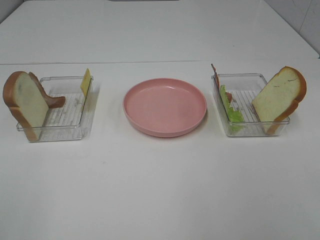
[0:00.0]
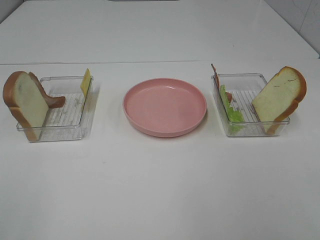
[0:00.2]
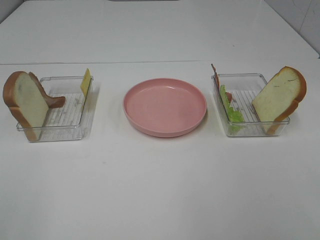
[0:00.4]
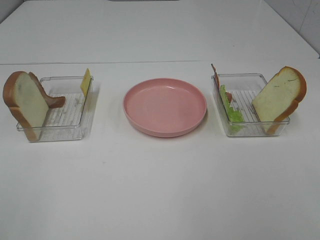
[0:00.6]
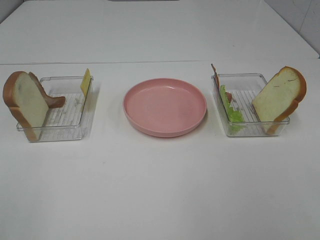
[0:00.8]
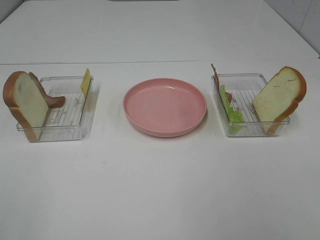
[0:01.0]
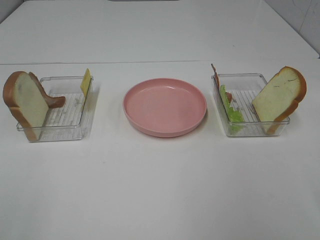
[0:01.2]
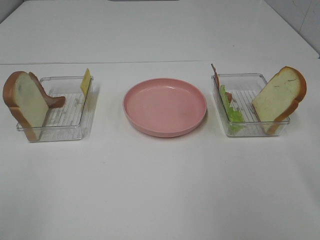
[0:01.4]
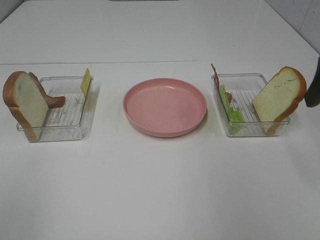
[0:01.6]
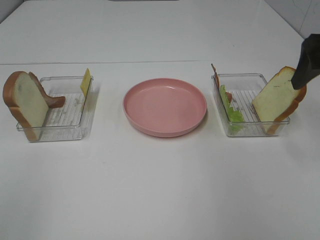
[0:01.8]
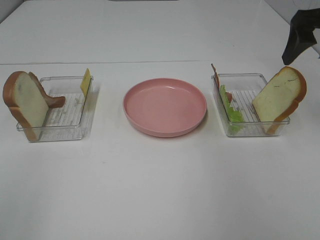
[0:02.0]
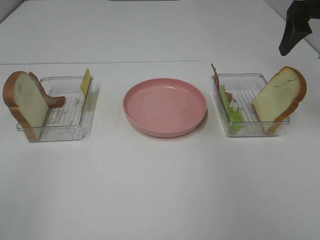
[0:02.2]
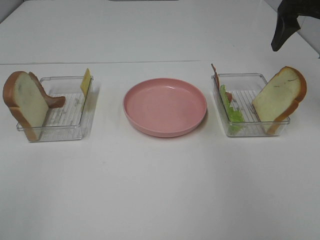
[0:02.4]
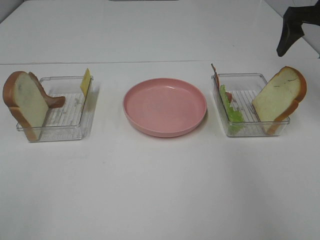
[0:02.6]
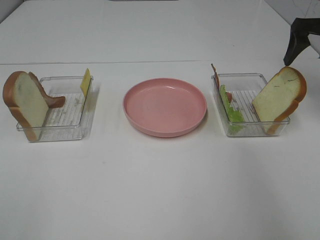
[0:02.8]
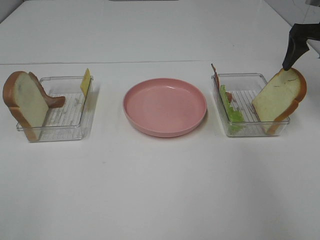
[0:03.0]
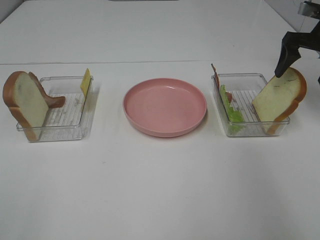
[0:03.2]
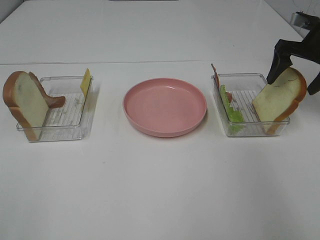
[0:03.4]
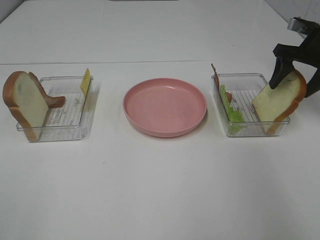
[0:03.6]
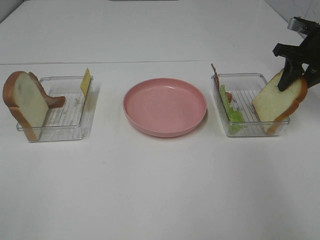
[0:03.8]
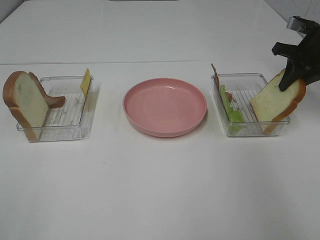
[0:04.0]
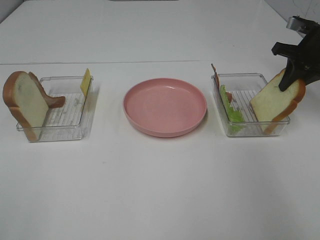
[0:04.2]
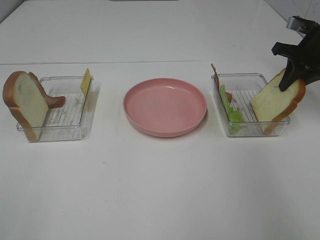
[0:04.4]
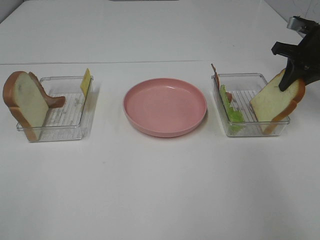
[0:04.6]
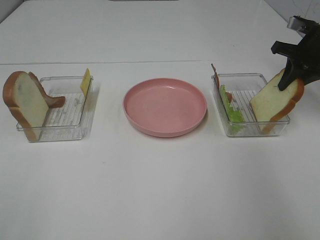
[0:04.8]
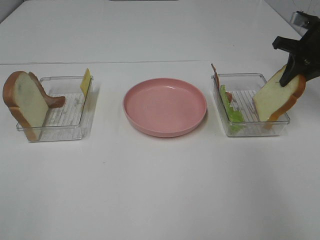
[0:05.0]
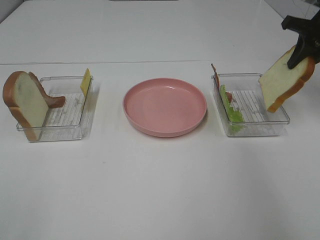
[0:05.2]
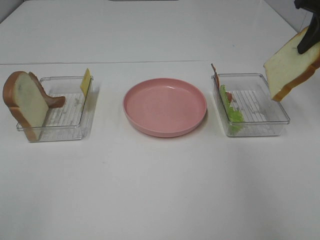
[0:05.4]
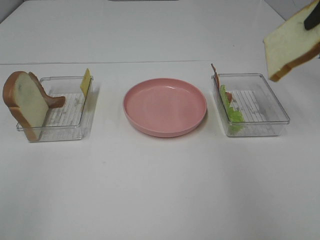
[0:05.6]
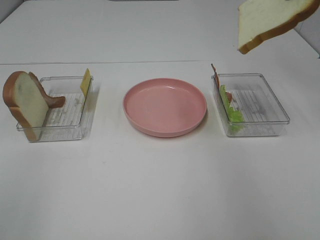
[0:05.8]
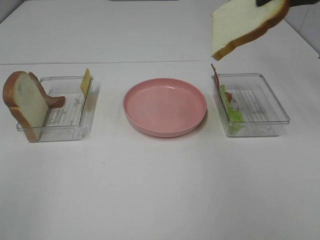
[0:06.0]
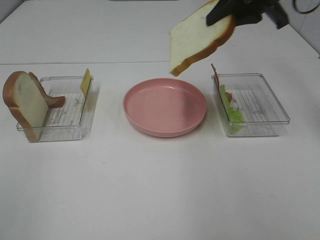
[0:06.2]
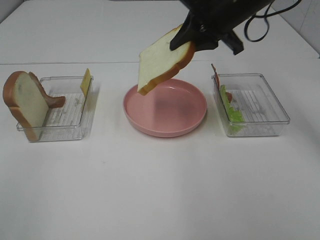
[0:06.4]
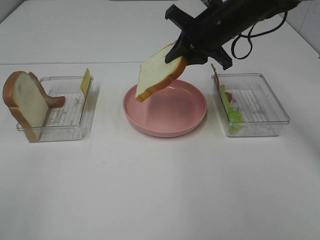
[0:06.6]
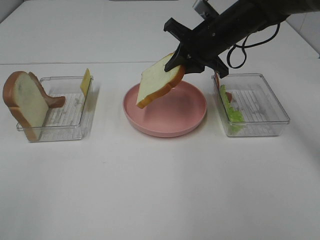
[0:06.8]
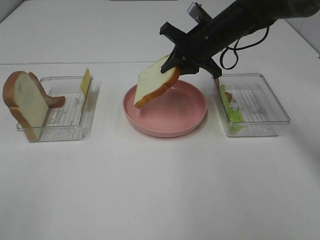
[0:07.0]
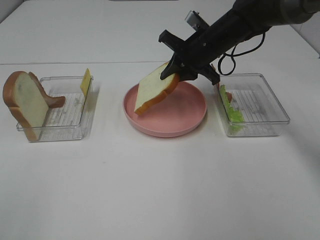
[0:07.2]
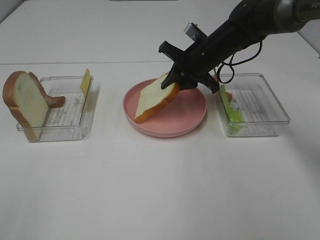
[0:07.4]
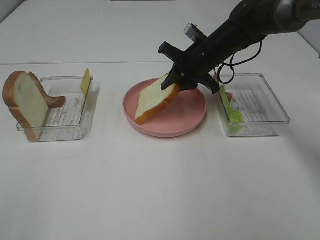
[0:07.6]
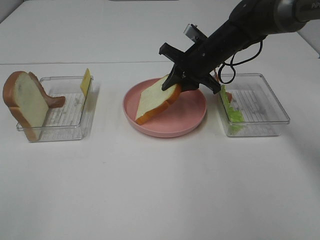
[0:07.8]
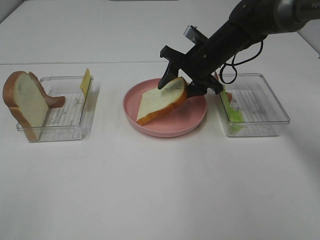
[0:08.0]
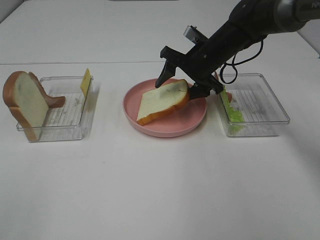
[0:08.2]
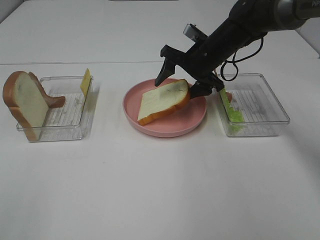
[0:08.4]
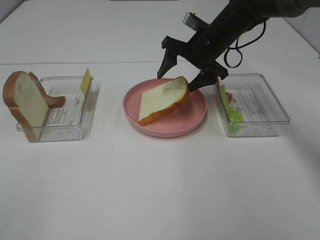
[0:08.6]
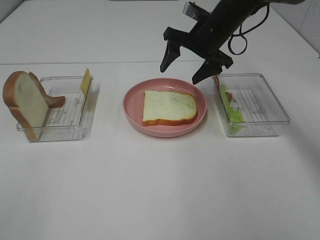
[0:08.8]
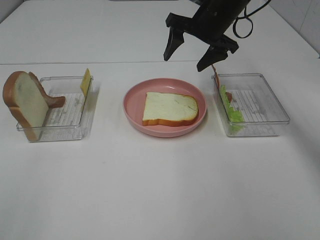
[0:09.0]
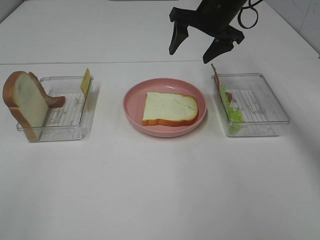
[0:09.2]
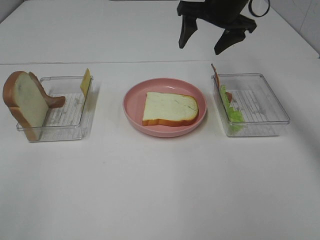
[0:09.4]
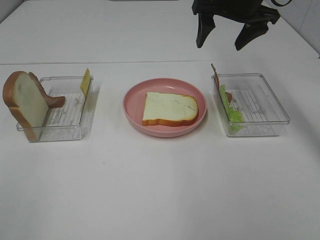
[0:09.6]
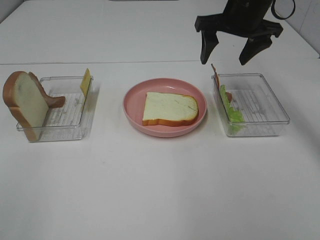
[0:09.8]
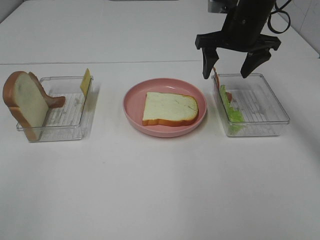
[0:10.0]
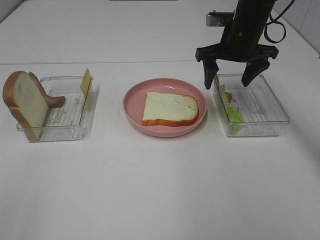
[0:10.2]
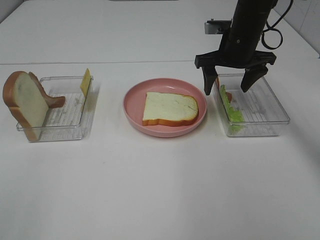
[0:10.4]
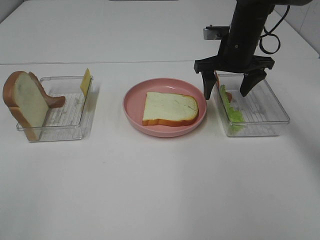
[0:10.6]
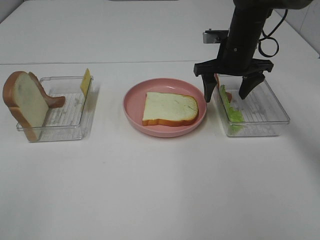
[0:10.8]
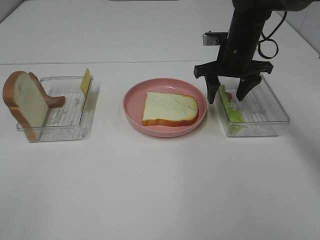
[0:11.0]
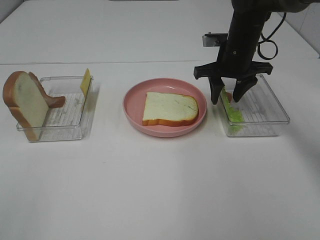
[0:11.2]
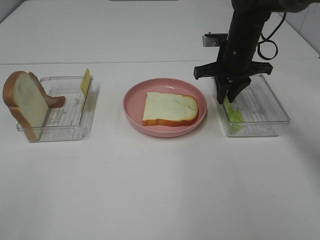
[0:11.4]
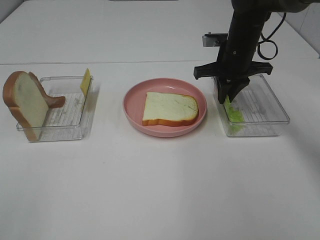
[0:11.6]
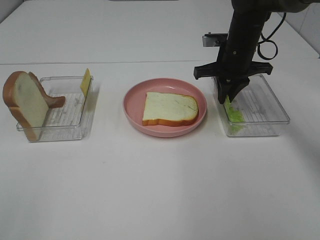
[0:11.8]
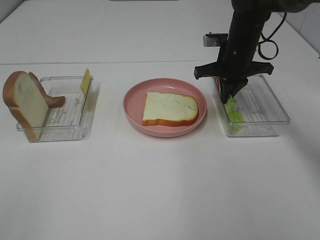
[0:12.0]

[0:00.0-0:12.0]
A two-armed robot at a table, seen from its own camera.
Task of the whole recording: Make sandwiches.
Step, 0:00.0 to 0:04.8: Right hand:grab the bread slice.
Step, 0:05.0 to 0:08.8: Right hand:place the bread slice on the plate.
0:00.0 to 0:01.6: The right gripper moves forward, approximately 25 cm.
0:01.6 to 0:03.0: The right gripper moves forward, some 20 cm.
0:03.0 to 0:04.4: The right gripper closes.
0:04.4 to 0:06.0: The right gripper travels upward, to the left and backward by about 20 cm.
0:06.0 to 0:07.6: The right gripper heads downward, to the left and forward, covering some 25 cm.
0:07.6 to 0:09.0: The right gripper moves upward, some 10 cm, and opens up.
0:09.0 to 0:10.4: The right gripper shifts by about 5 cm.
0:10.4 to 0:12.0: The right gripper closes its fingers.

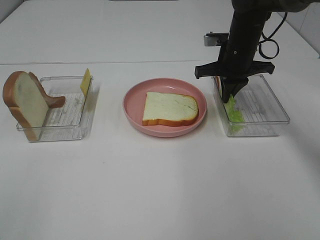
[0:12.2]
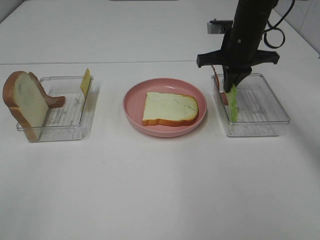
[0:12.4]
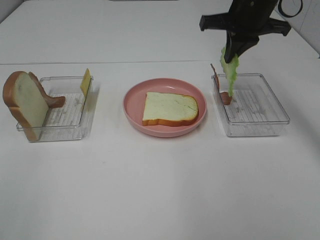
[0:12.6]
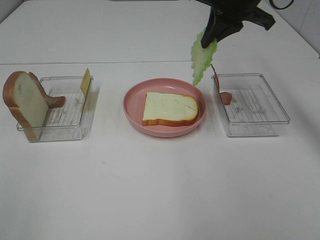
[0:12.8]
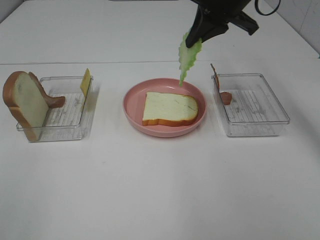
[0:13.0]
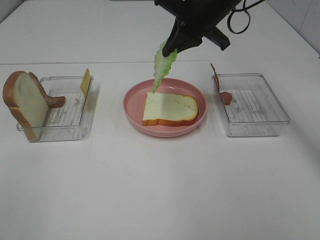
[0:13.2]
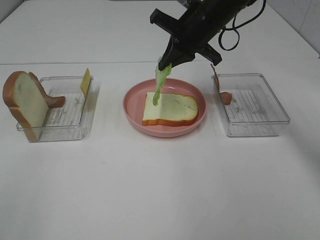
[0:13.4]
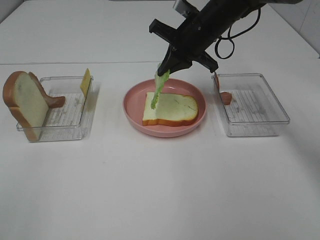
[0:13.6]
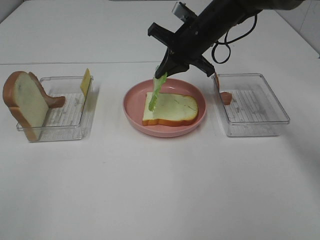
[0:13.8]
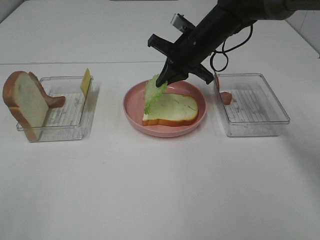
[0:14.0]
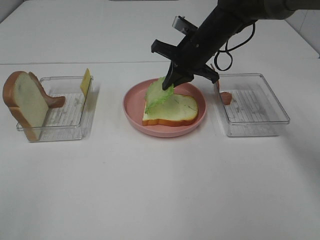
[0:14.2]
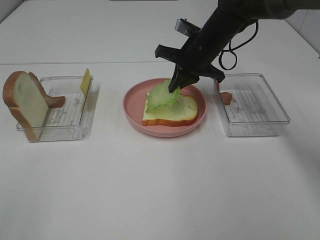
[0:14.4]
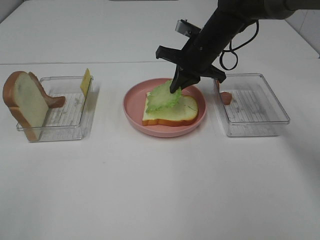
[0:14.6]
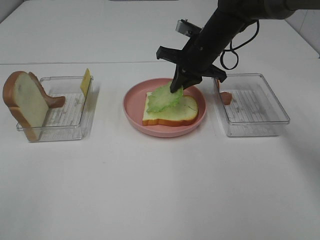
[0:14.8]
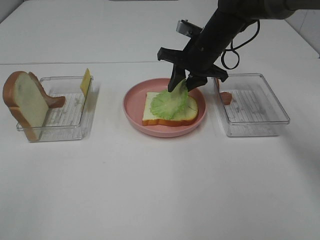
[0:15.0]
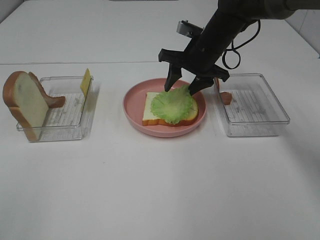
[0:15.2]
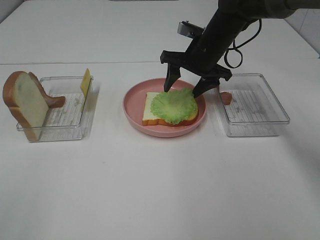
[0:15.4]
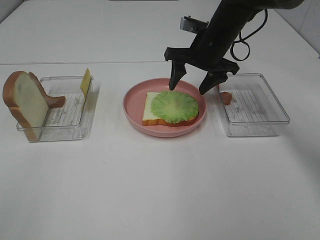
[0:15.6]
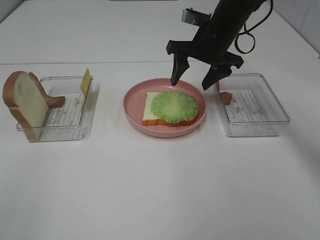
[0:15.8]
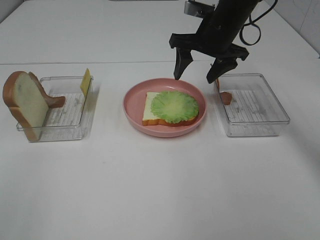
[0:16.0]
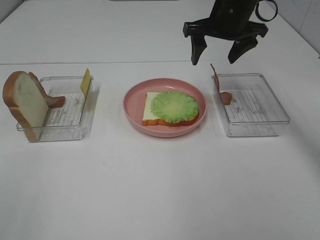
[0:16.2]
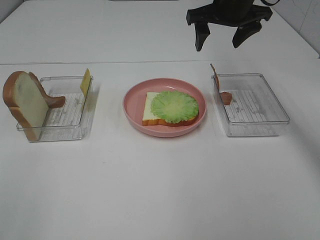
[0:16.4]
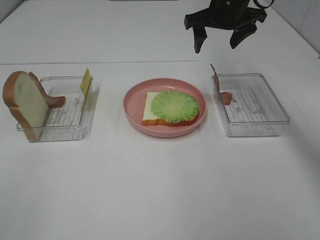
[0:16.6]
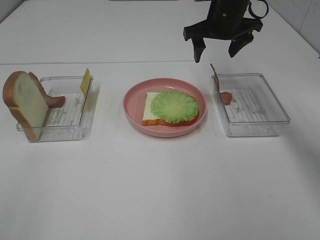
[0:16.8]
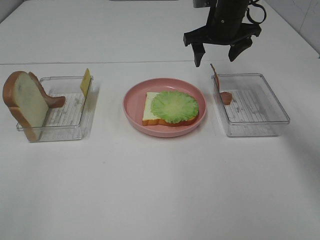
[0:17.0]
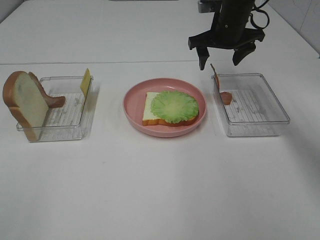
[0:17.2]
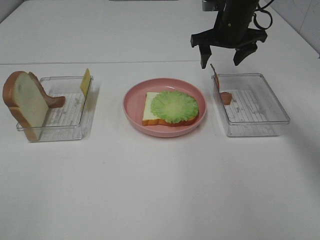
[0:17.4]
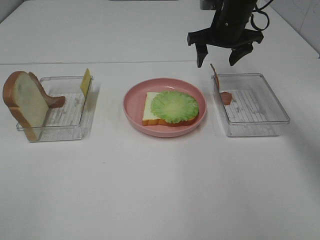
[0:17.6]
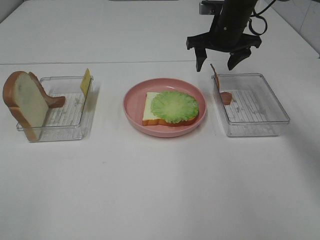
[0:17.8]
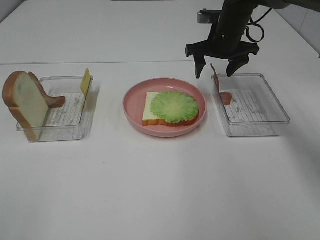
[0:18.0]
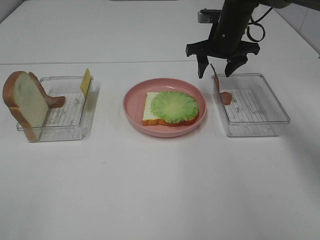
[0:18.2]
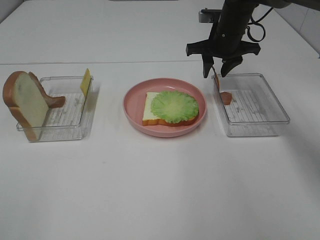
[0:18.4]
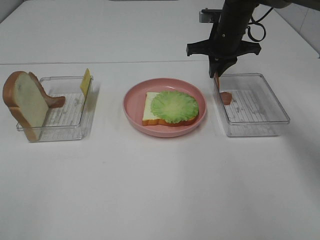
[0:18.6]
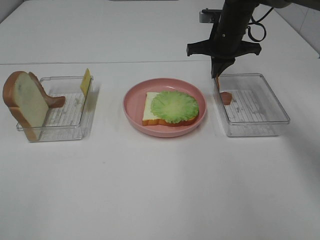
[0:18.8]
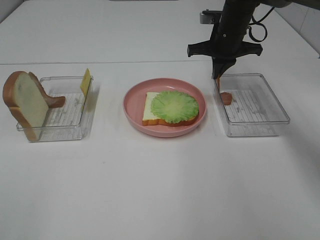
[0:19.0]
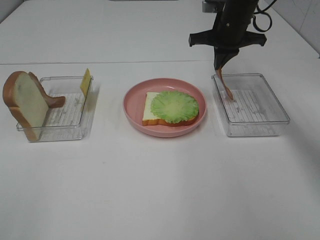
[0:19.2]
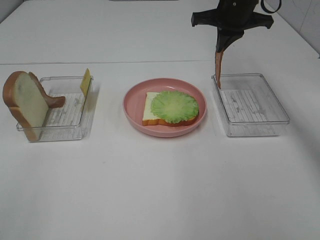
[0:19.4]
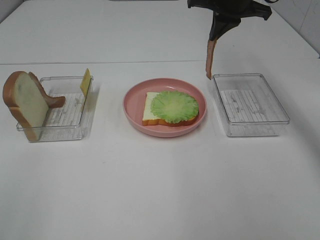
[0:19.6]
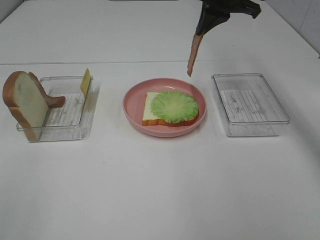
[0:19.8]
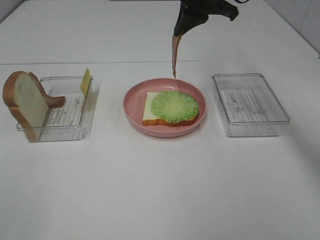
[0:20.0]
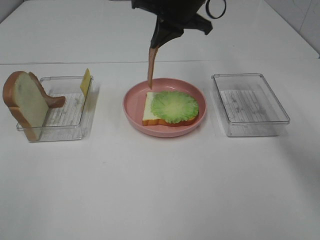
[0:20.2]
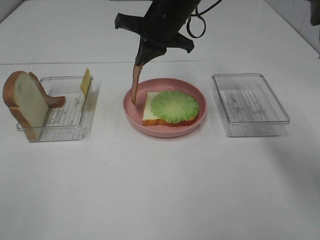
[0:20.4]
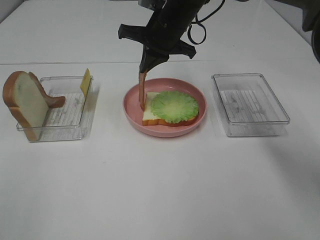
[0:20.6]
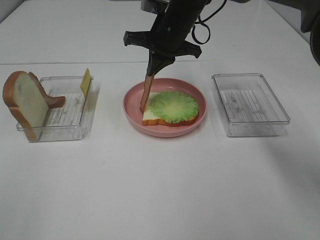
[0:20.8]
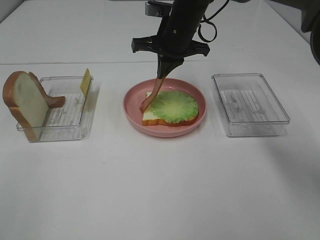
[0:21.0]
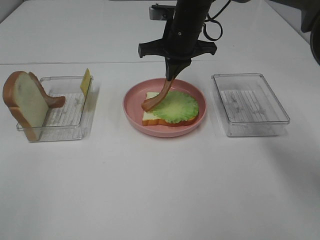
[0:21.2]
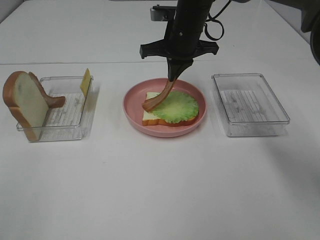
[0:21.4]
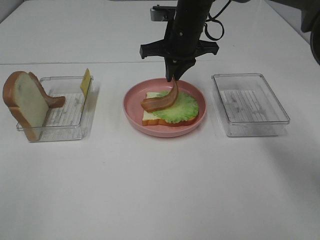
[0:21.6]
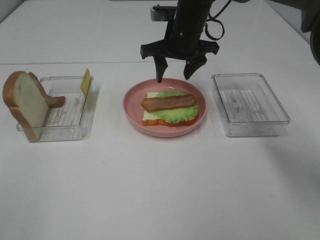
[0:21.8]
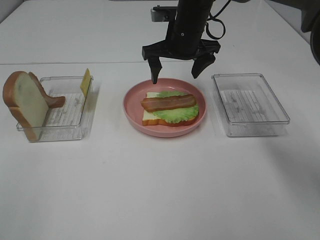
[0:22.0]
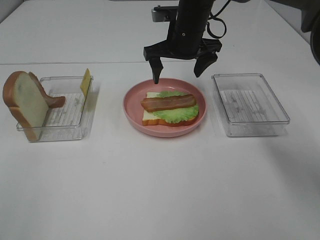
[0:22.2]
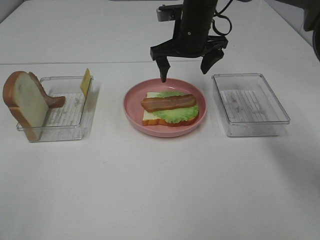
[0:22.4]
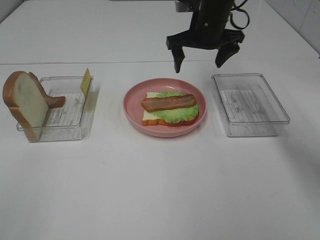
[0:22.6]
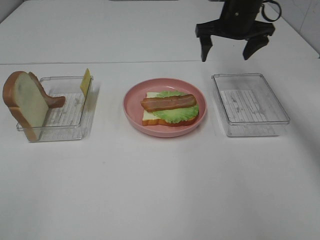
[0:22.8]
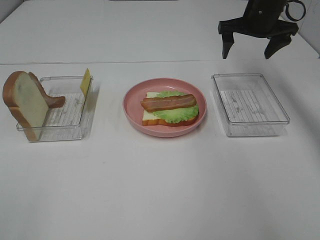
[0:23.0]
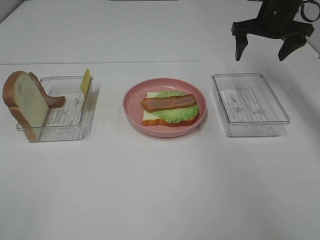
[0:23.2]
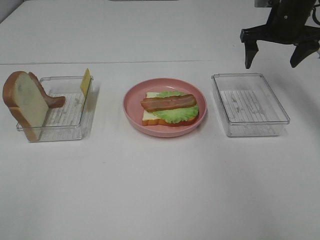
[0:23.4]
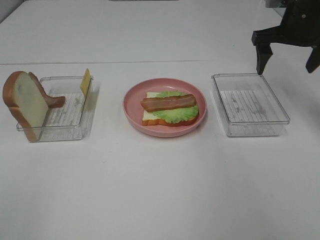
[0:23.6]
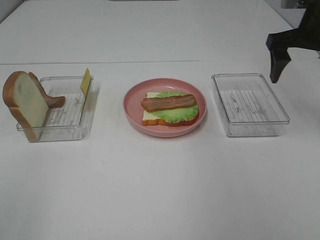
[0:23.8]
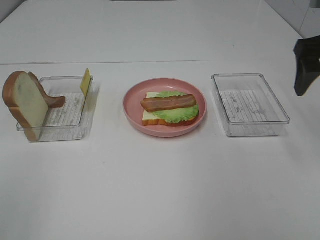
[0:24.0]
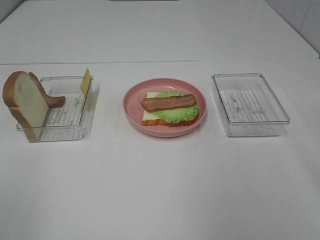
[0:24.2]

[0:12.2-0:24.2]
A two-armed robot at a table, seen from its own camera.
Task of the whole recording: Make sandwiches.
Step, 0:12.4 to 0:15.6: Right hand:place the lettuce slice on the bread slice.
Step, 0:15.8 to 0:19.2: Right hand:grab the bacon.
Step, 0:19.4 to 0:22.2: Right hand:place bacon on lettuce slice.
0:12.2 to 0:13.8: The right gripper goes some 5 cm to the left, and reaches approximately 15 cm upward, then returns.
0:13.8 to 0:15.2: The right gripper opens its fingers.
0:15.2 to 0:16.6: The right gripper moves upward, approximately 10 cm.
0:16.6 to 0:18.2: The right gripper travels downward by approximately 5 cm.
0:18.2 to 0:19.8: The right gripper travels upward by some 10 cm, and closes.
0:19.8 to 0:21.2: The right gripper heads downward and to the left, covering approximately 10 cm.
0:21.2 to 0:22.6: The right gripper shifts some 5 cm to the right, and opens up.
0:22.6 to 0:24.2: The right gripper goes some 35 cm backward, to the right and upward.
